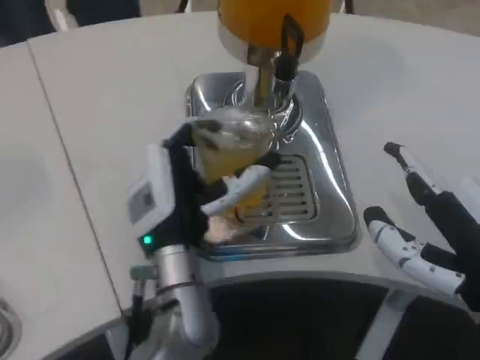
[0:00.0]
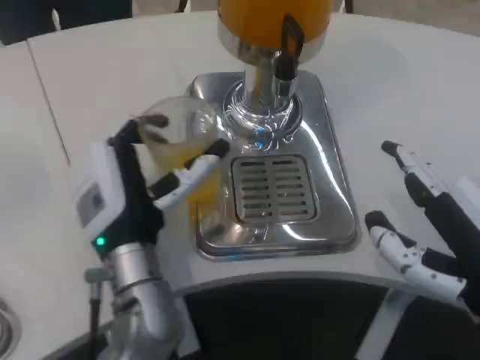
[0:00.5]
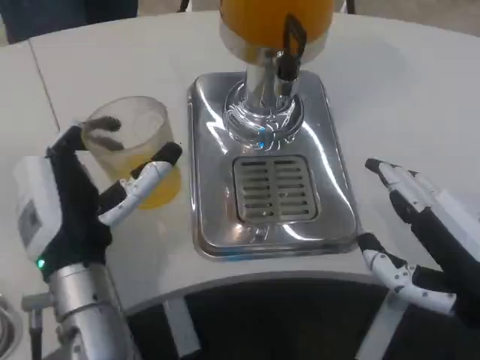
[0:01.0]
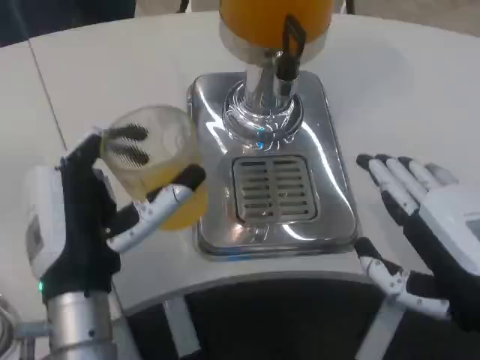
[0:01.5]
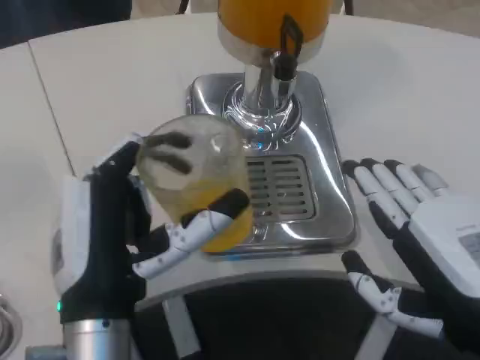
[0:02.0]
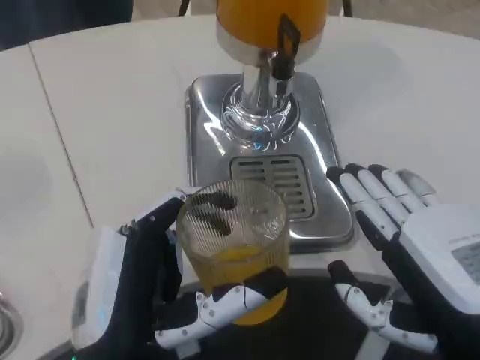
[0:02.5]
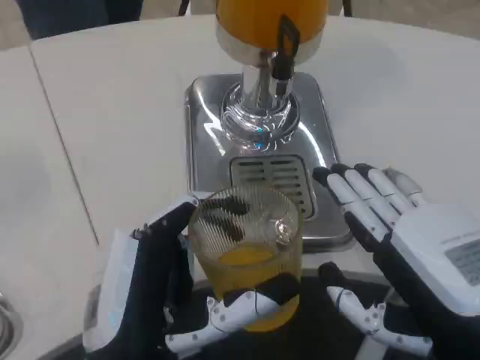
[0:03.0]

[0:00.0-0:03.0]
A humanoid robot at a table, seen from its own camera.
Task of the whole recording: Grasp the cup under the faucet to collect the drink, then remove the cup.
0:00.0 to 0:01.5: The left hand travels backward and to the left by some 10 cm.
0:01.5 to 0:03.0: The left hand heads backward, covering roughly 10 cm.

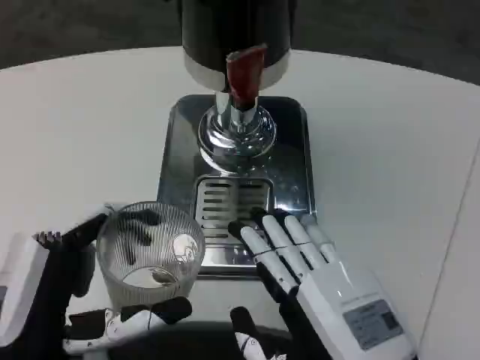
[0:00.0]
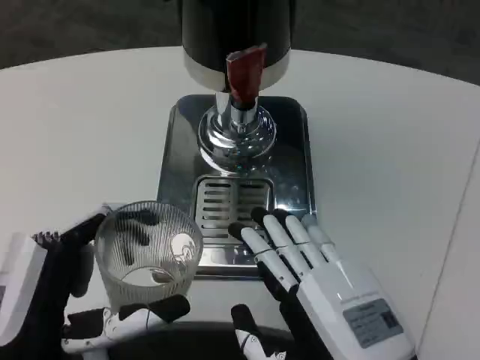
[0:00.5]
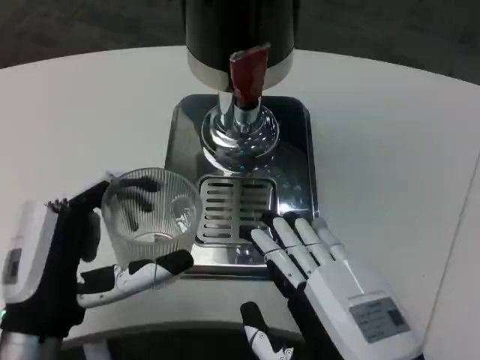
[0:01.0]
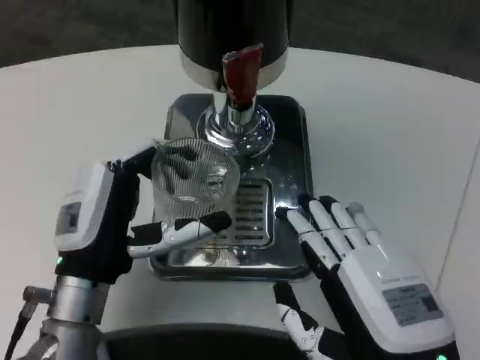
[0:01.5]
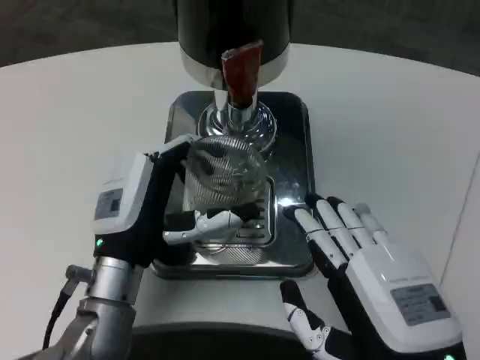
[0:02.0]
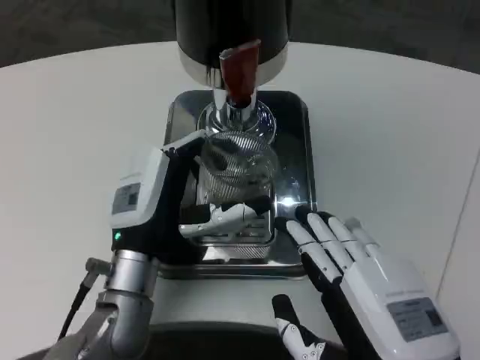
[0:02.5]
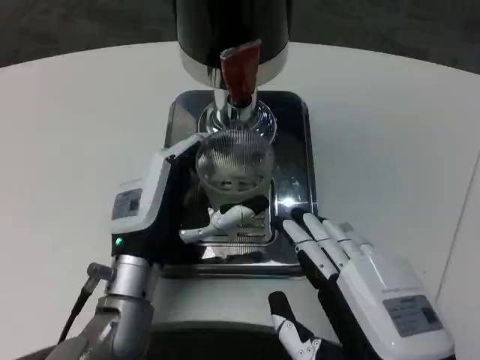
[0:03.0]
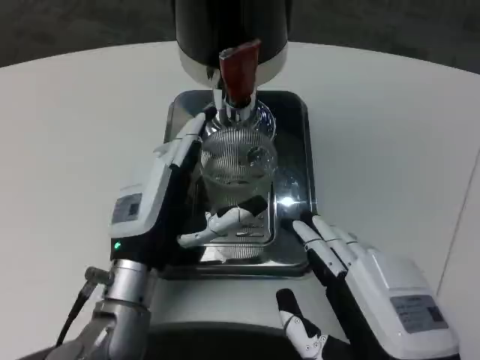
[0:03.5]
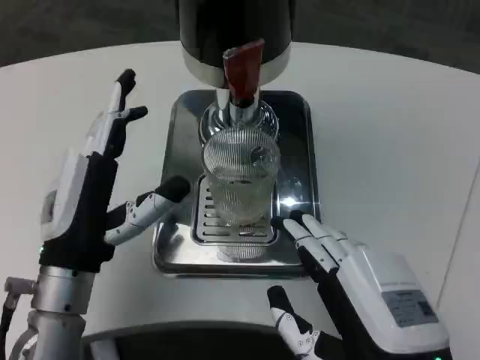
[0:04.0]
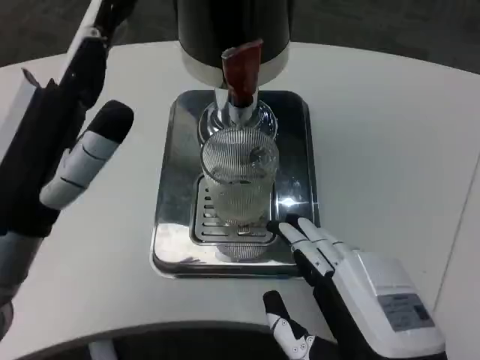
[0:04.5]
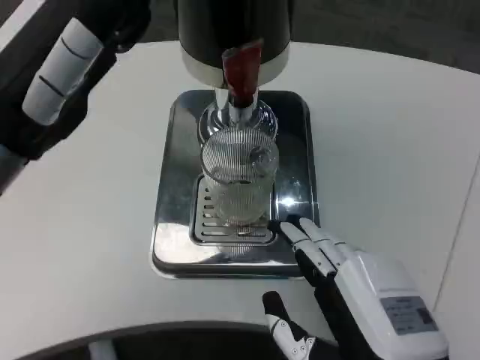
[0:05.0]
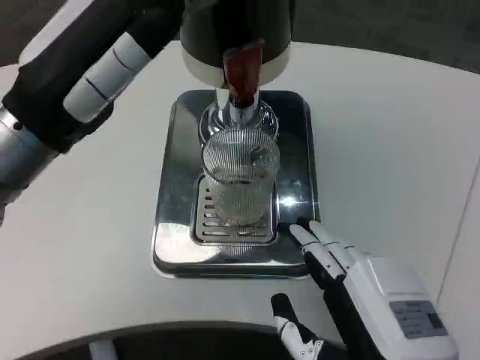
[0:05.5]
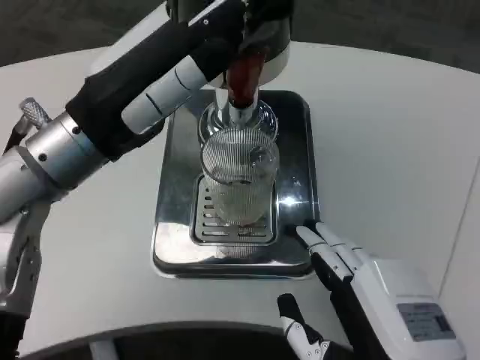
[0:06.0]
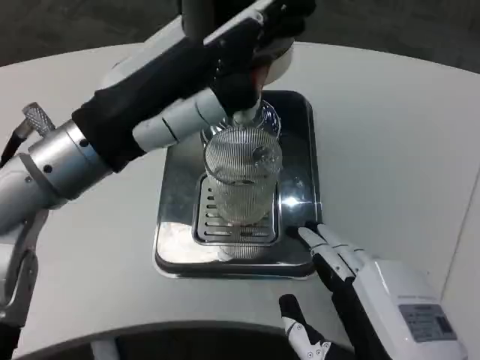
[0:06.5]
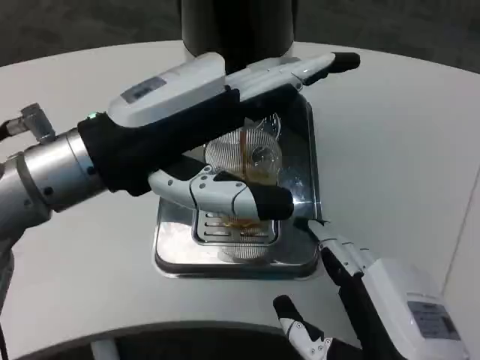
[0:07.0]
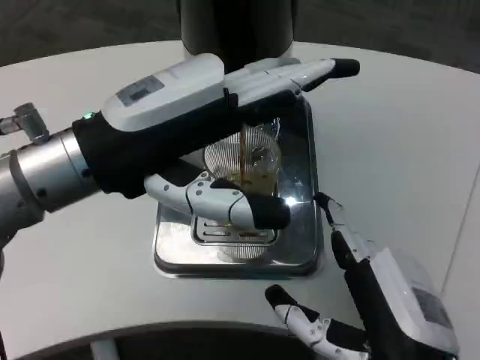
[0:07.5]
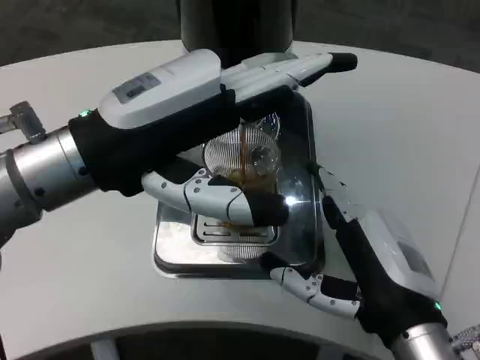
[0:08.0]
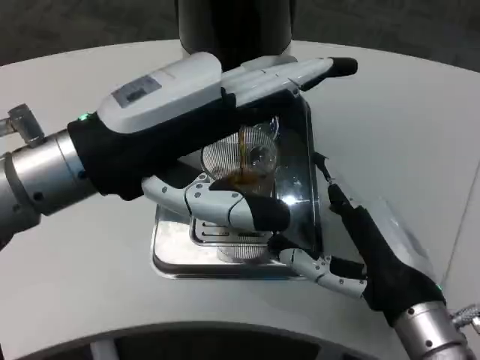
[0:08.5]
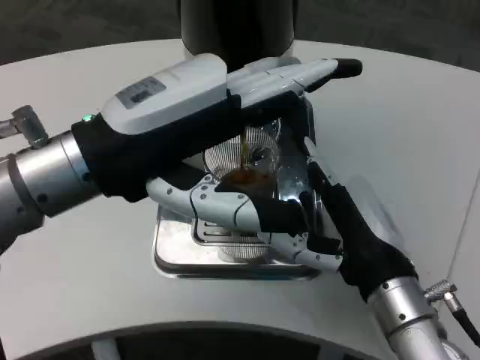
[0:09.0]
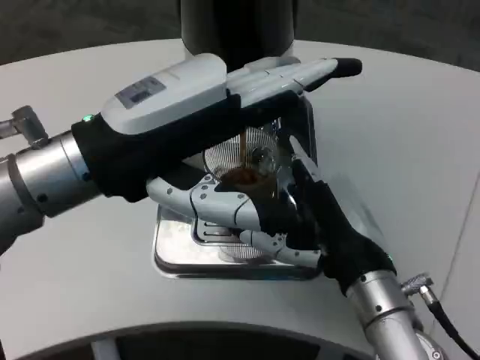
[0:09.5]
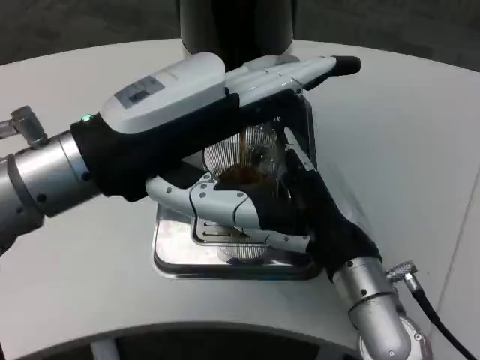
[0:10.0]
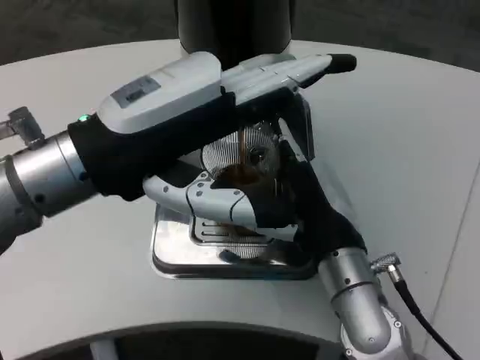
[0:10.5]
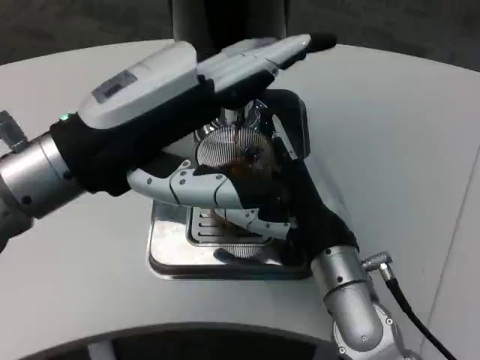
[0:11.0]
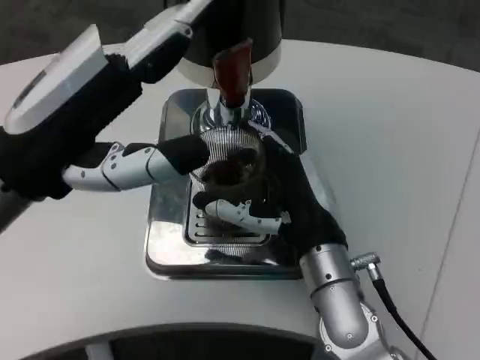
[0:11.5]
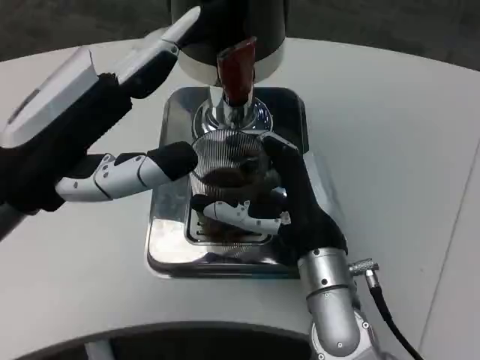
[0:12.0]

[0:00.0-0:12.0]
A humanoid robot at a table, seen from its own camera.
Task of the whole recording: Grasp the cup under the faucet to collect the drink, then remove the cup.
0:00.0 to 0:02.0: The left hand heads forward and to the right, covering approximately 15 cm.
0:04.0 to 0:06.0: The left hand moves upward, about 15 cm.
0:06.0 to 0:08.0: The right hand travels forward by about 5 cm.
0:08.0 to 0:10.0: The right hand goes roughly 5 cm forward.
0:10.0 to 0:12.0: The left hand ends up roughly 5 cm from where it was.

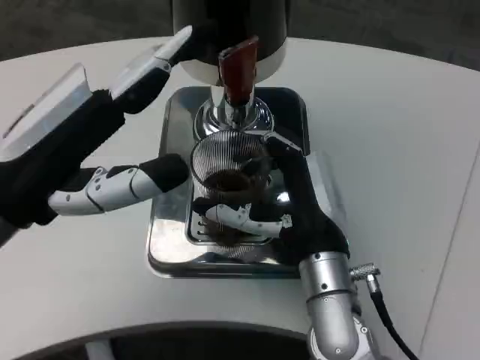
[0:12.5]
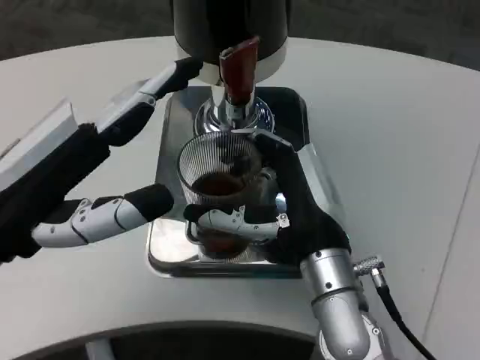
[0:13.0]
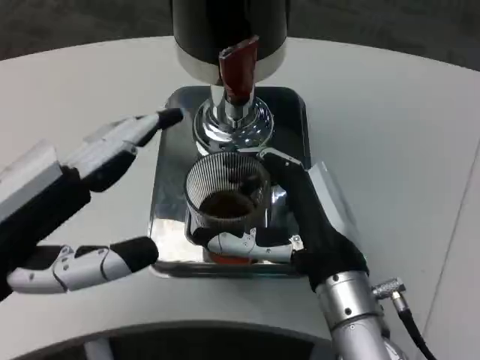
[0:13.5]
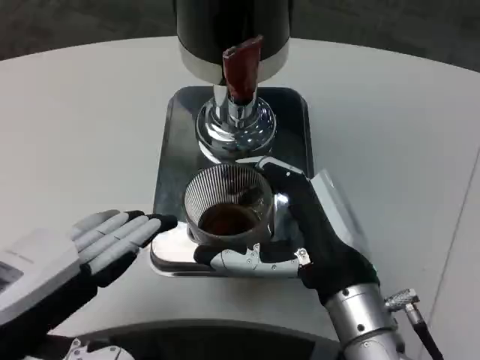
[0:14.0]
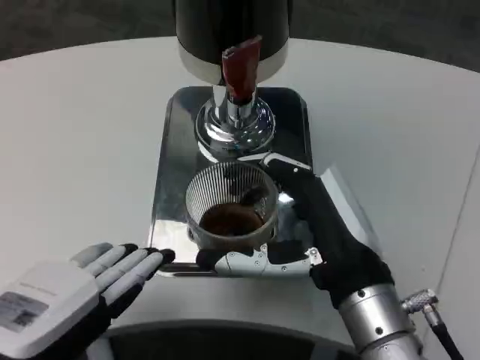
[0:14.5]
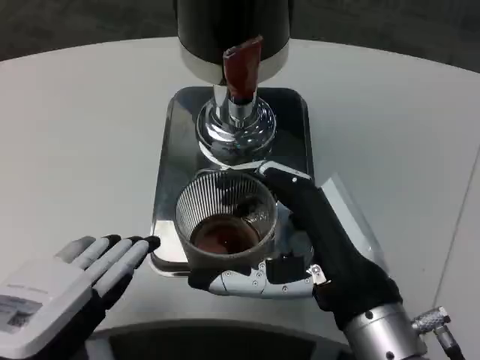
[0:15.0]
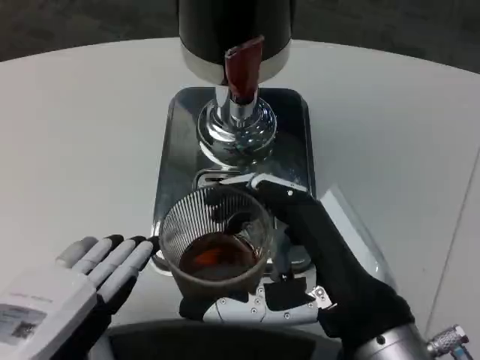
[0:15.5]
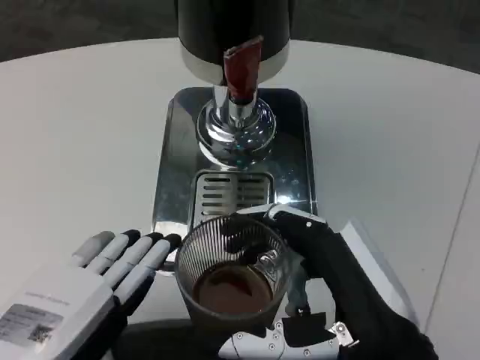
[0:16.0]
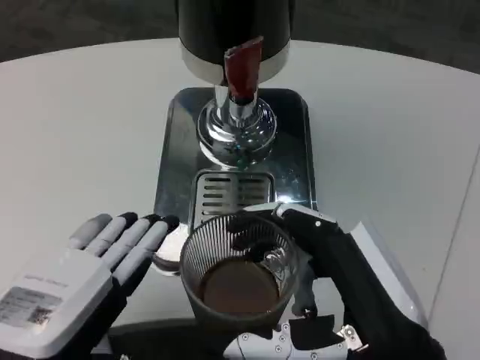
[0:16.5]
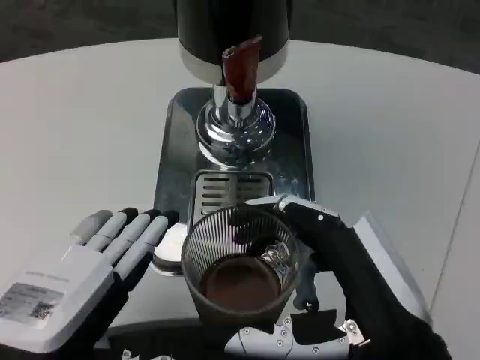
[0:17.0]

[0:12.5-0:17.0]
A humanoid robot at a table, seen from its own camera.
Task of the whole recording: Grasp the cup under the faucet to collect the drink, then remove the cup.
0:12.5 to 0:14.5: The right hand travels backward by some 5 cm. Meanwhile the left hand is displaced backward and downward by approximately 10 cm.
0:14.5 to 0:17.0: The right hand goes roughly 10 cm backward.

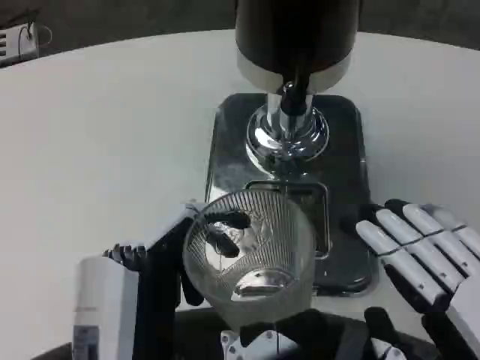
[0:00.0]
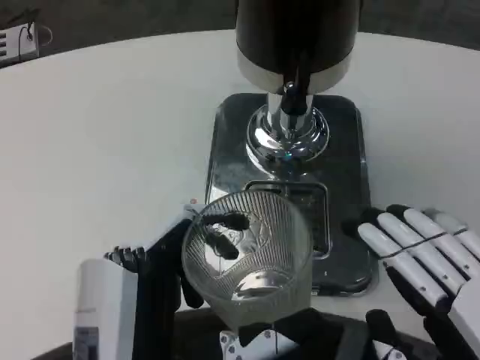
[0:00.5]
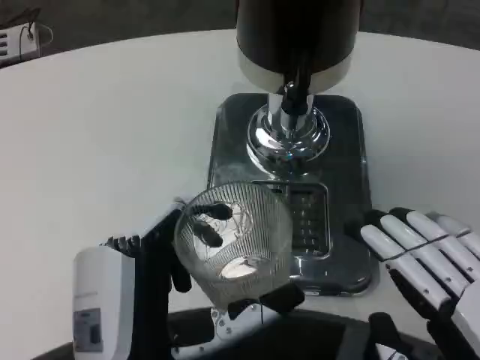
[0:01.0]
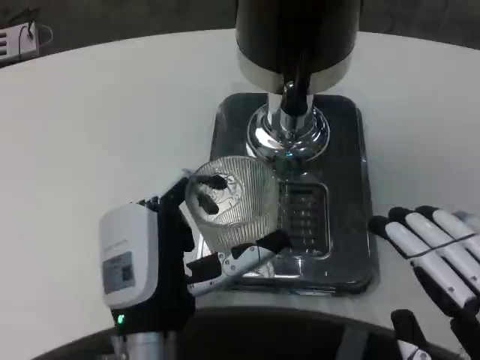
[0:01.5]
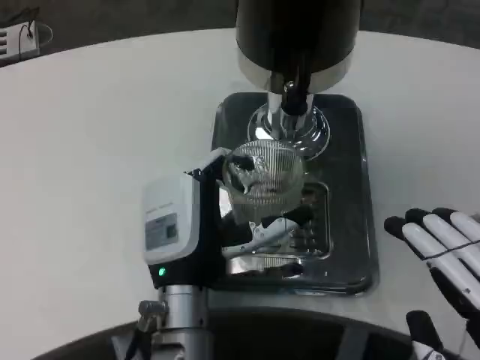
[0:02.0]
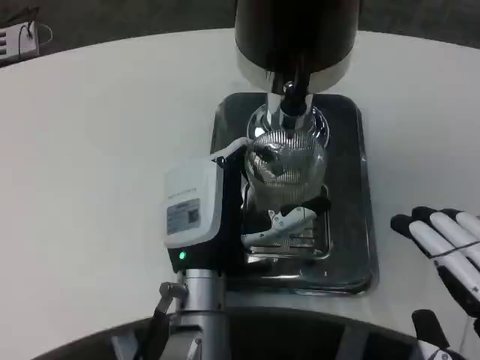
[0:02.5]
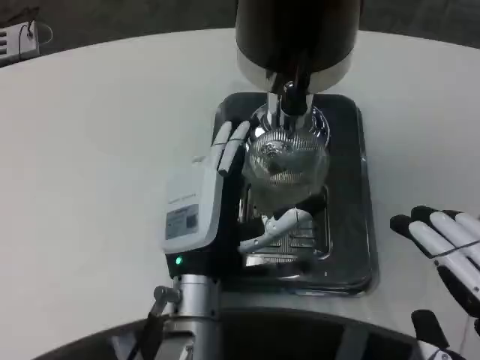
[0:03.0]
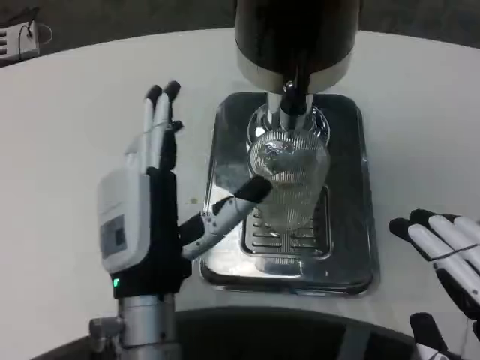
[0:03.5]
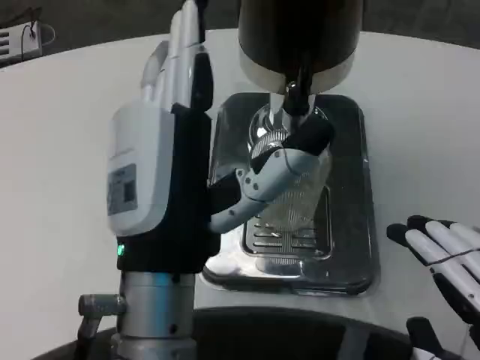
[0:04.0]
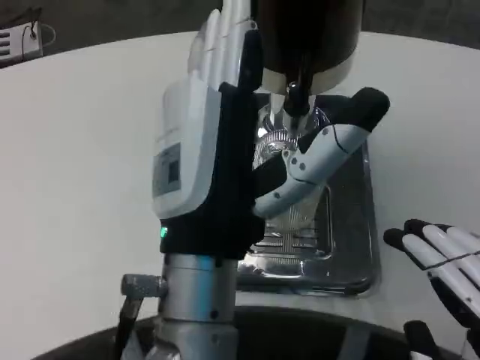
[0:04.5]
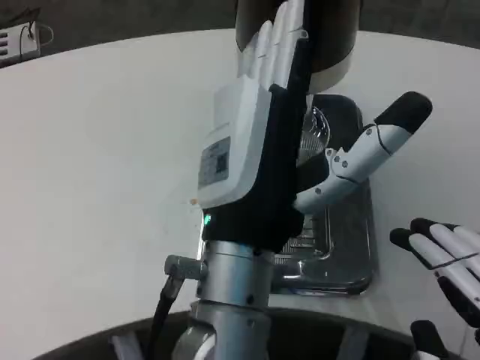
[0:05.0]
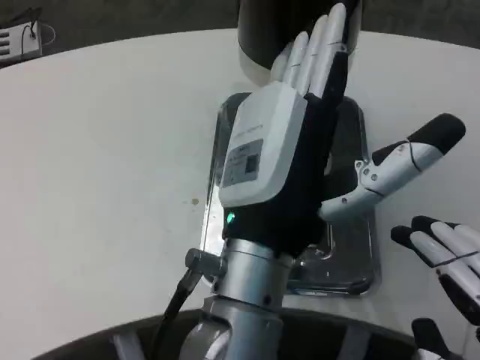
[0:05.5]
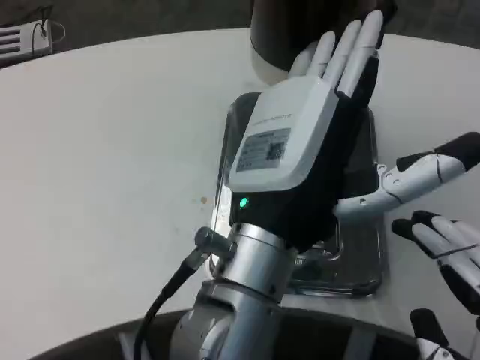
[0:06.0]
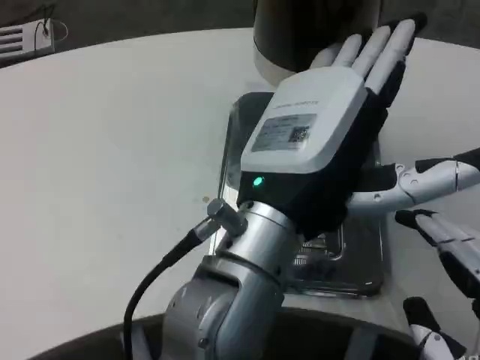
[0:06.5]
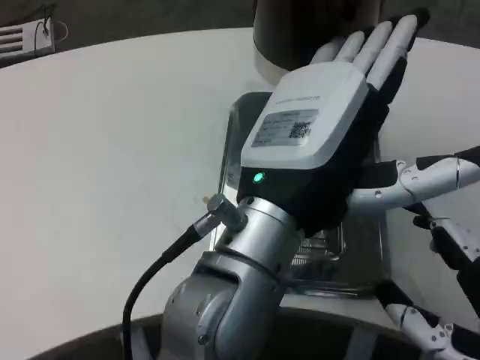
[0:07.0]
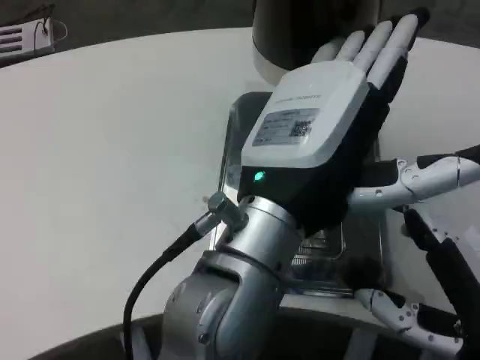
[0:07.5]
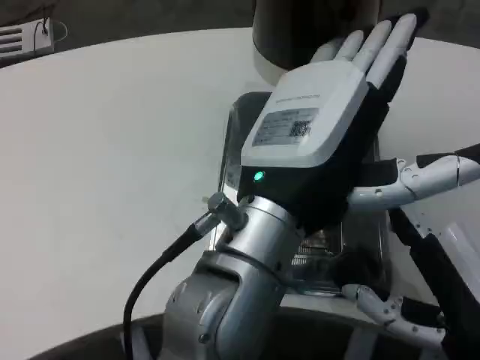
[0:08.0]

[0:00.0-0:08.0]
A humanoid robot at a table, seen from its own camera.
Task of the whole recording: Grasp the cup under the faucet to collect the drink, then remove the cup.
0:00.0 to 0:02.0: The left hand is displaced forward by roughly 15 cm.
0:02.0 to 0:04.0: The left hand travels upward and backward by some 15 cm.
0:04.0 to 0:06.0: The left hand shifts by approximately 5 cm.
0:06.0 to 0:08.0: The right hand is displaced forward by some 10 cm.
